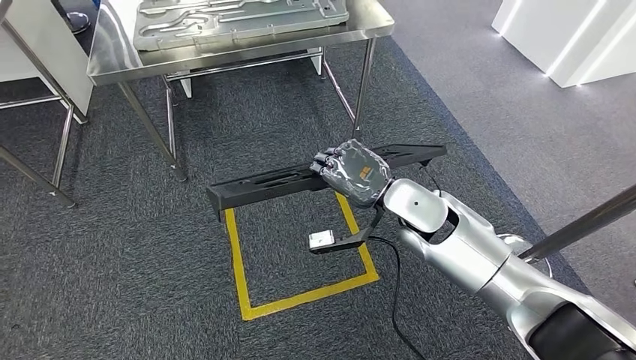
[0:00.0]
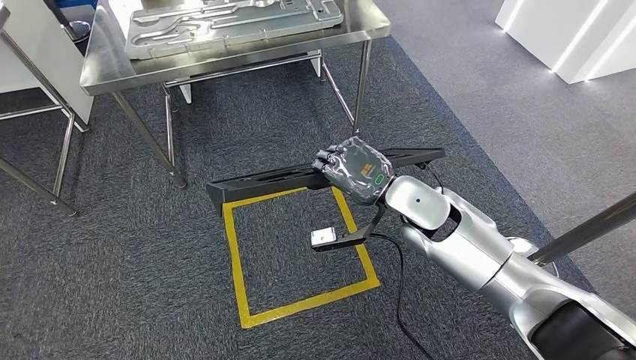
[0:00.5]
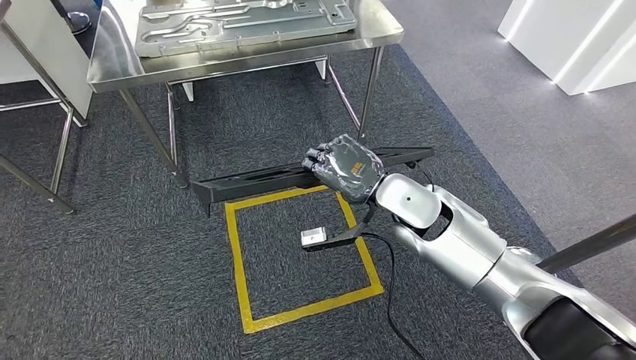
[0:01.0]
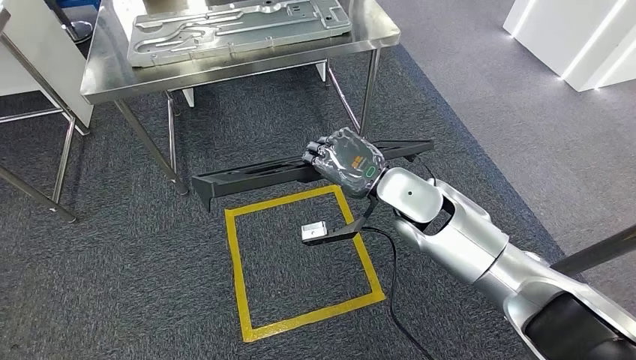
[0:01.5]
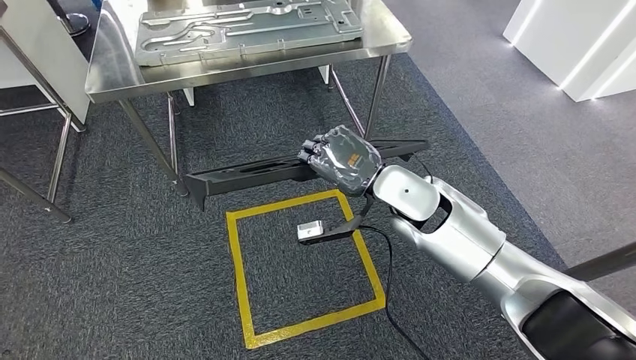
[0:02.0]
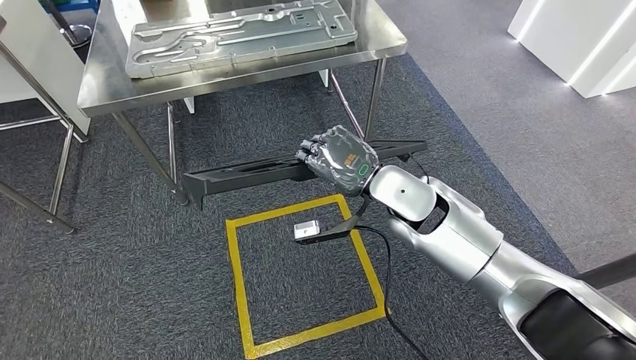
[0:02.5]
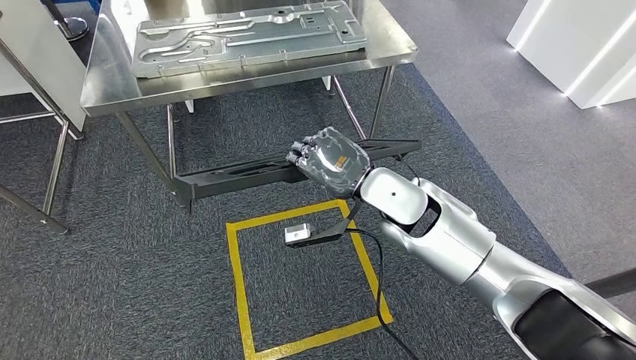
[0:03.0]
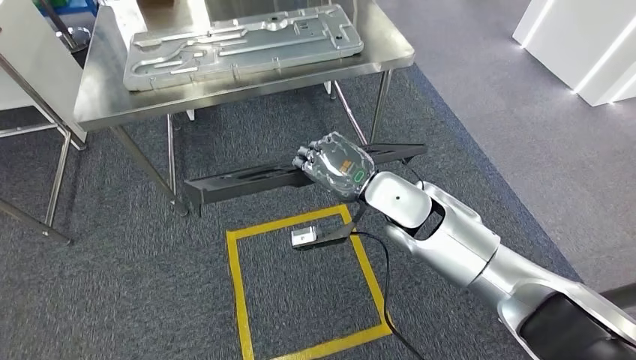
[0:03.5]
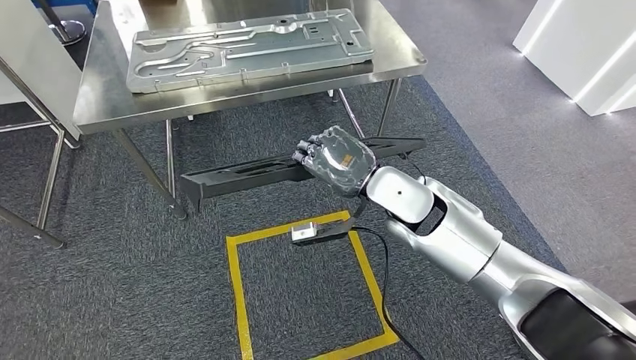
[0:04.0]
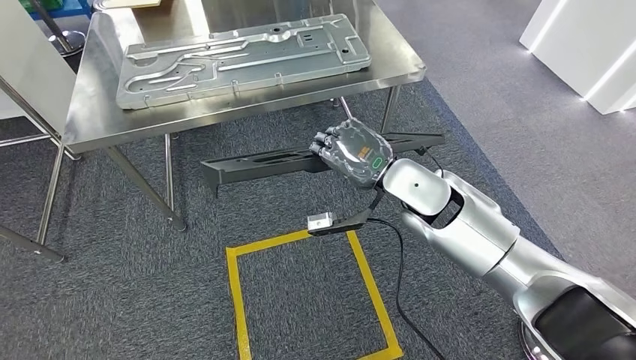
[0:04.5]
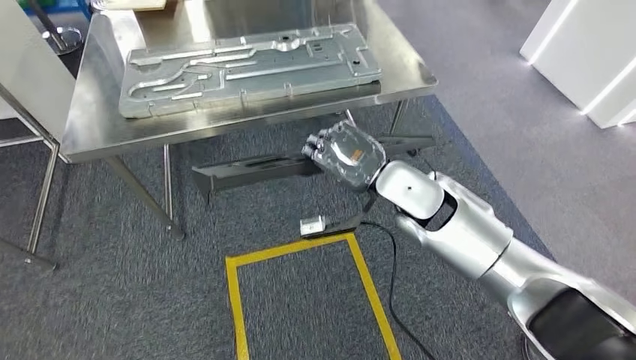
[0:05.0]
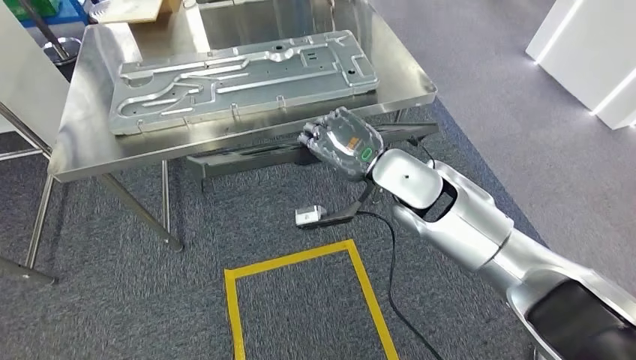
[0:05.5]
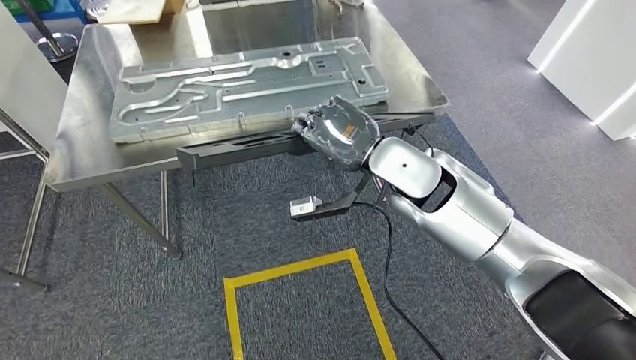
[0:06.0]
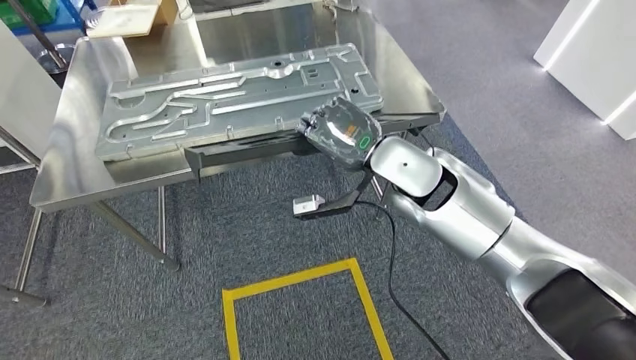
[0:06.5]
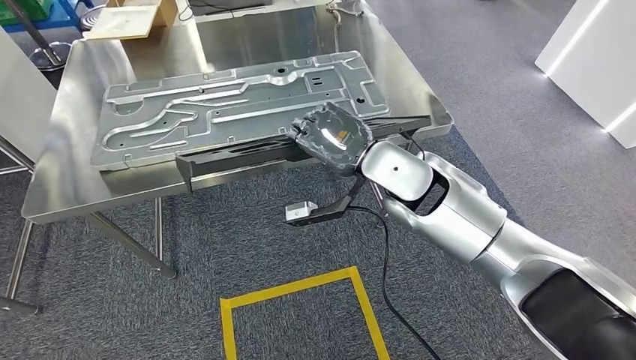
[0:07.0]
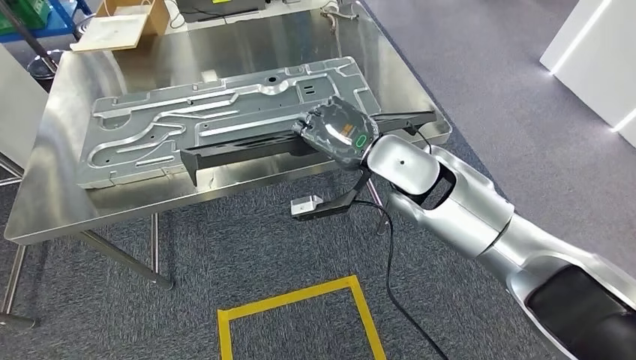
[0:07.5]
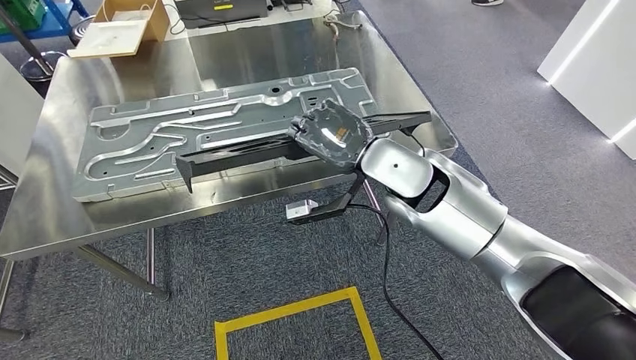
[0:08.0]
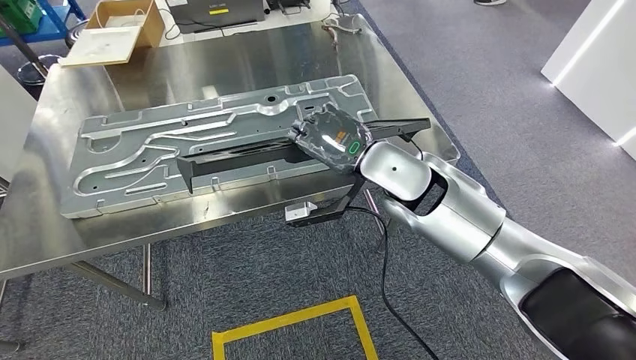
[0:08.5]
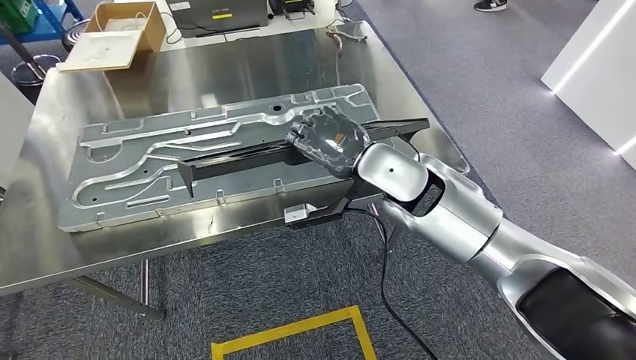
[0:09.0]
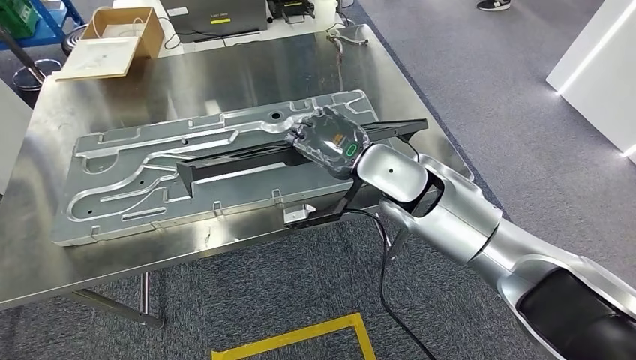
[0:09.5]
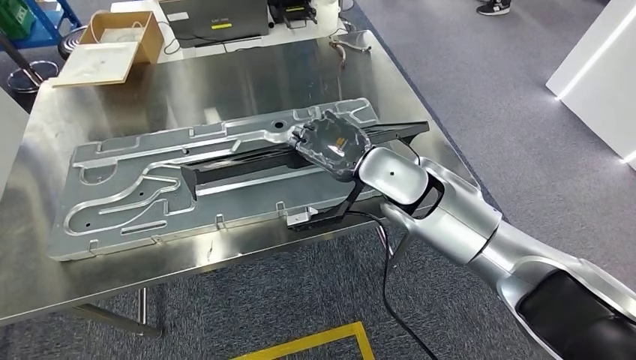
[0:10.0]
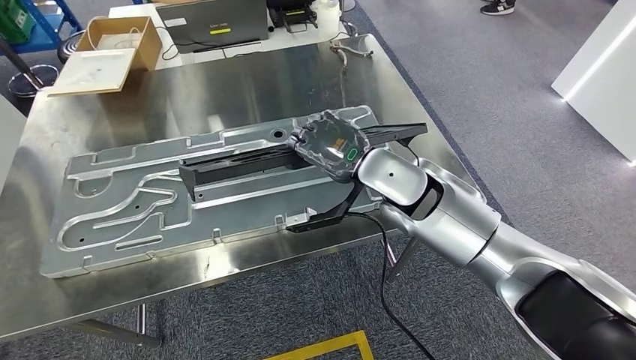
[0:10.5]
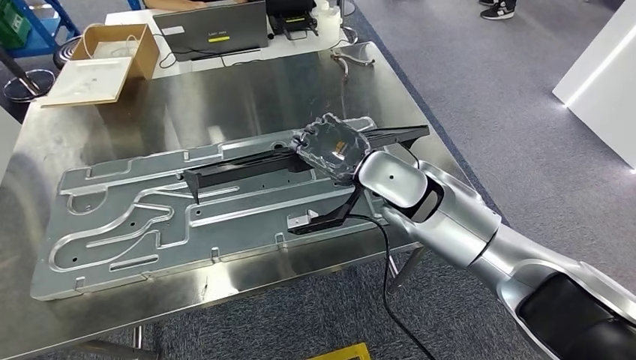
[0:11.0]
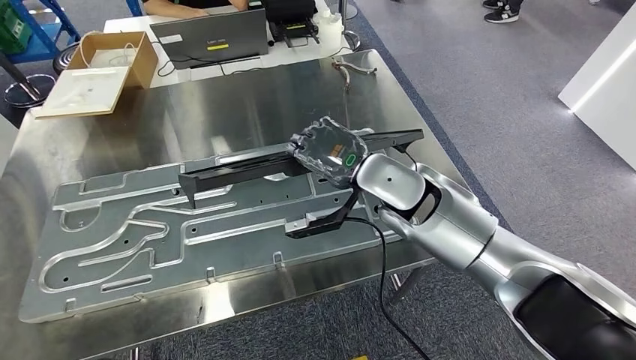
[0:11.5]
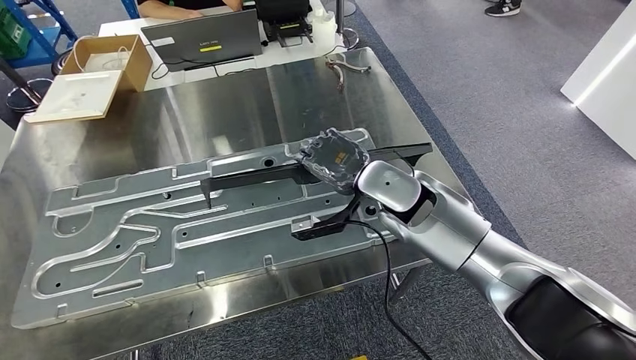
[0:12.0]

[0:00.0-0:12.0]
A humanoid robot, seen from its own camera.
Step, 0:00.0 to 0:05.5: Move the large material to the workbench.

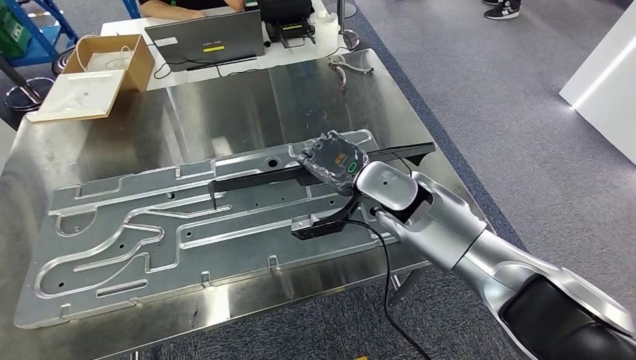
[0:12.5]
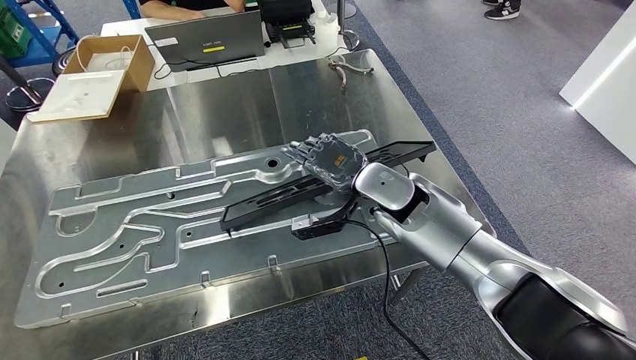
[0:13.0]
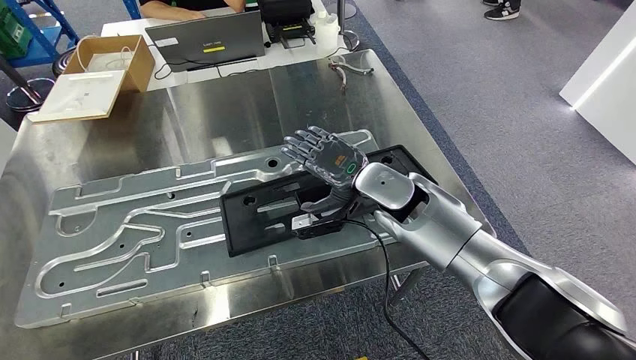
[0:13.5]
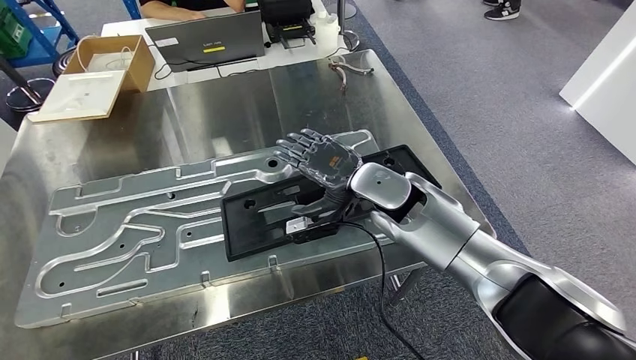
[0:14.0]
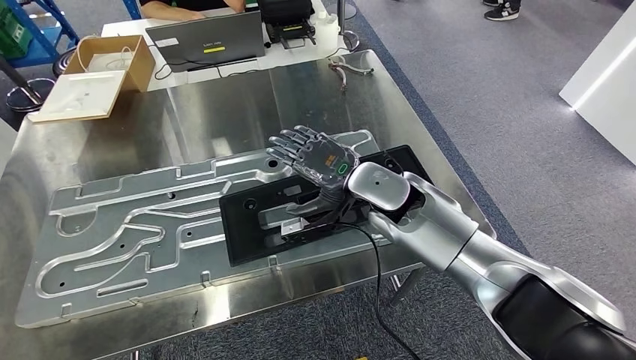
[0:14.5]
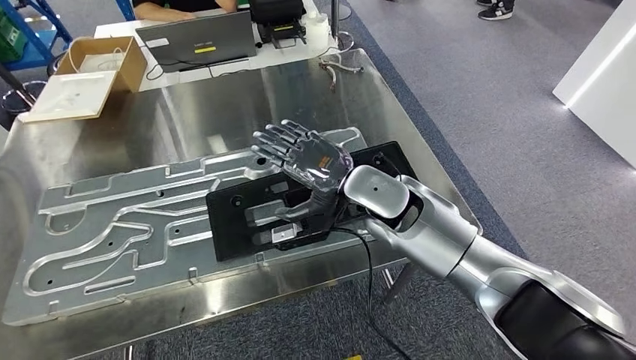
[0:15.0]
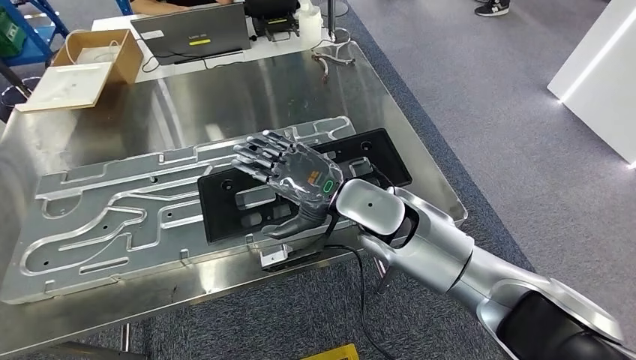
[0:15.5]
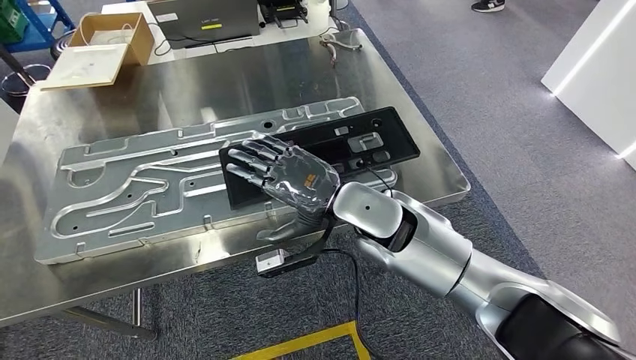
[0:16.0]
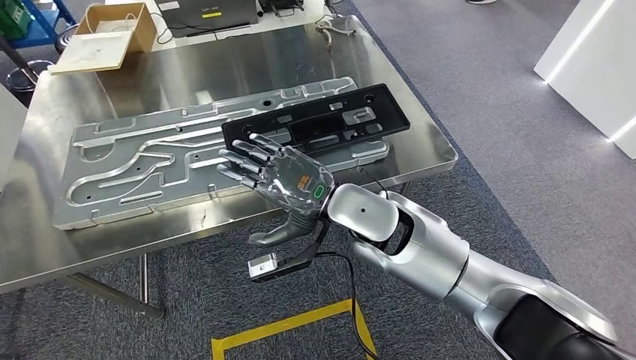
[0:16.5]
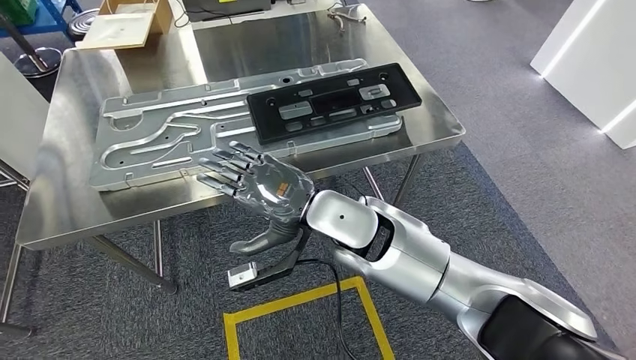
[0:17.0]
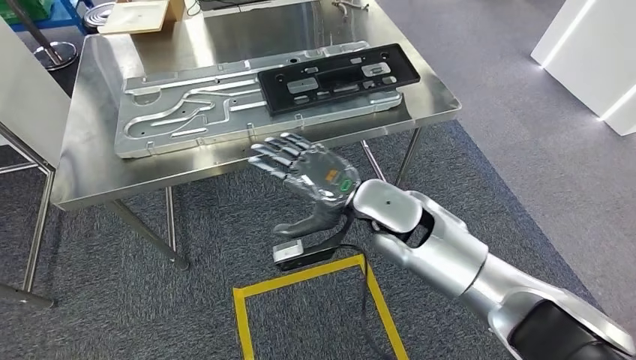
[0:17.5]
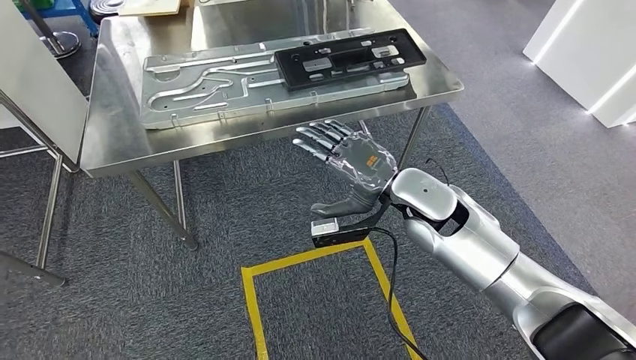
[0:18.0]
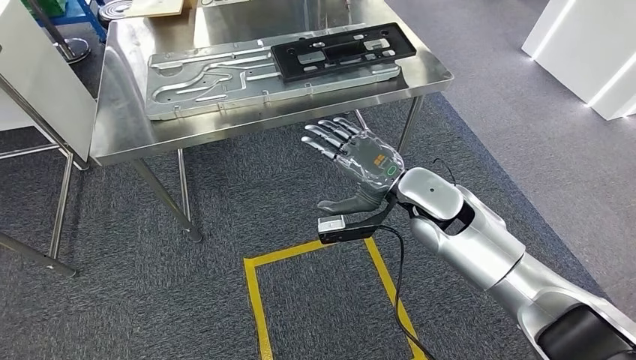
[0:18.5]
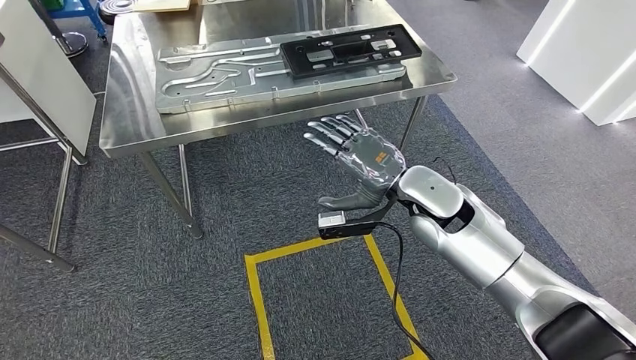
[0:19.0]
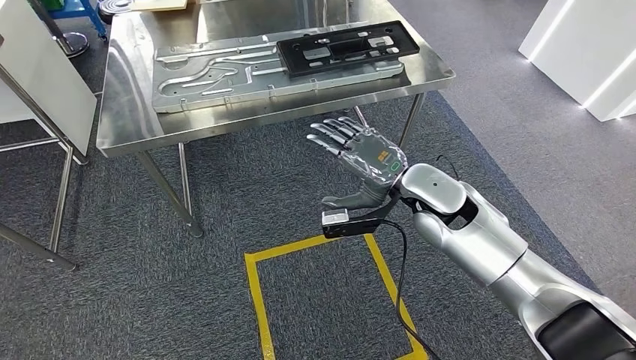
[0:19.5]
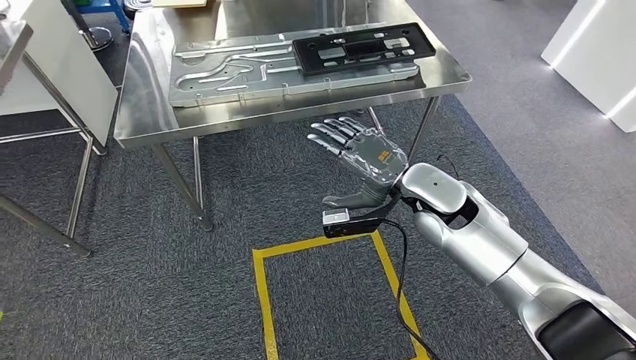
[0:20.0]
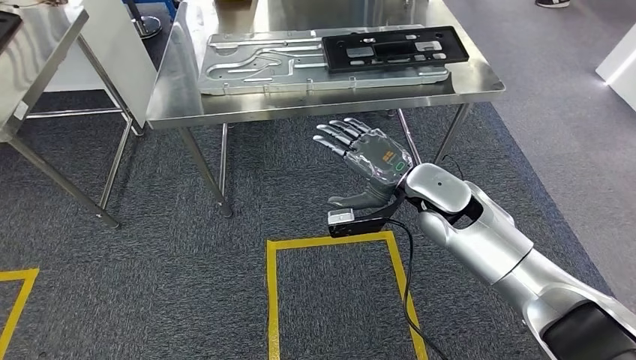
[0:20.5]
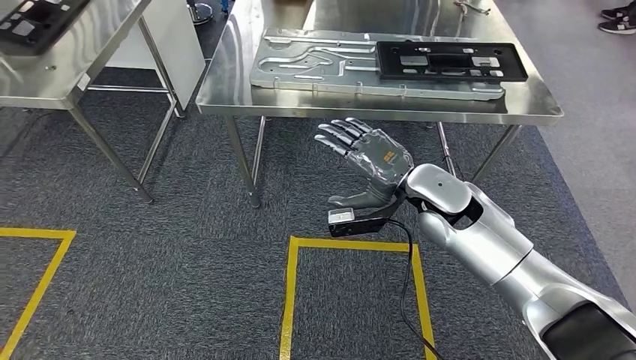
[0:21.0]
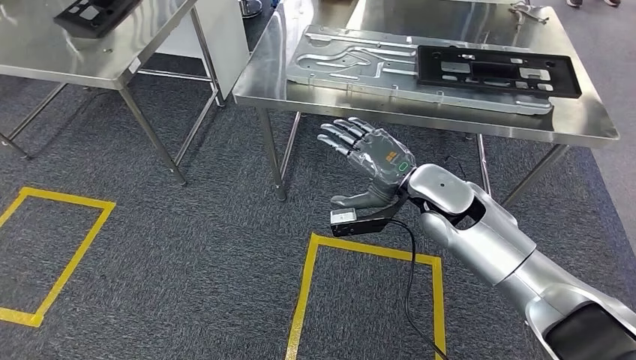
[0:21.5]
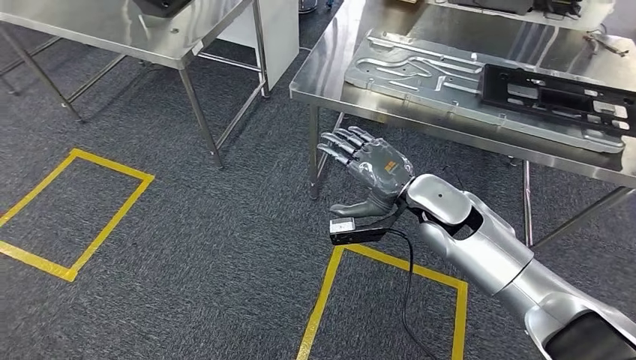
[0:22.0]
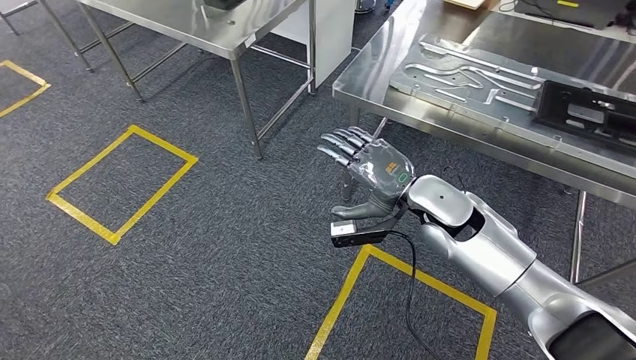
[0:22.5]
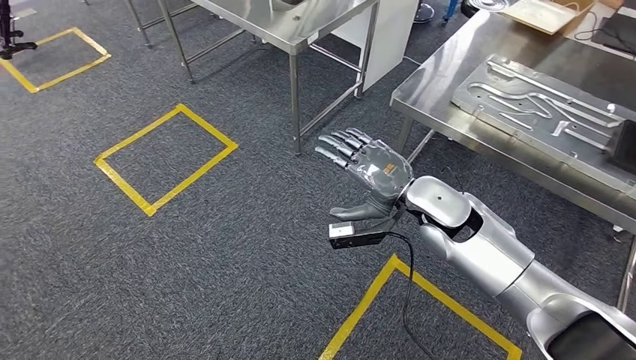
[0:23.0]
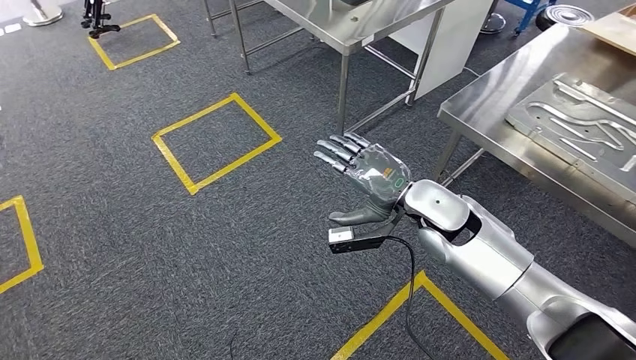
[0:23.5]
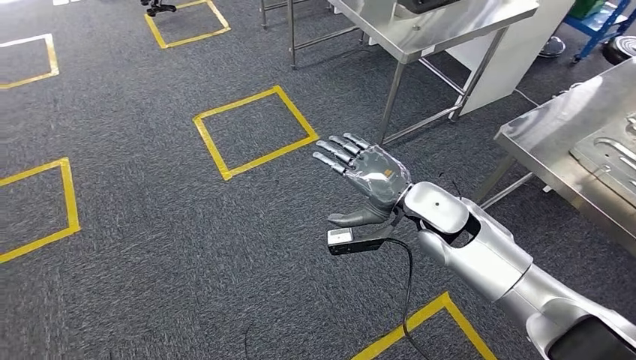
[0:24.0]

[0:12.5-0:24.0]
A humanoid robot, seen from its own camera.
Step, 0:12.5 to 0:15.5: Insert the large material into the corresponding slot on the workbench.
0:12.5 to 0:14.5: There are only small adjustments of the hands.
